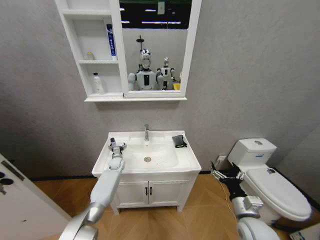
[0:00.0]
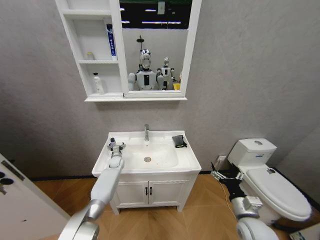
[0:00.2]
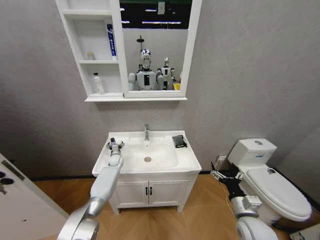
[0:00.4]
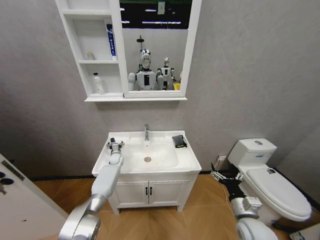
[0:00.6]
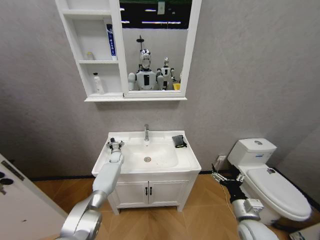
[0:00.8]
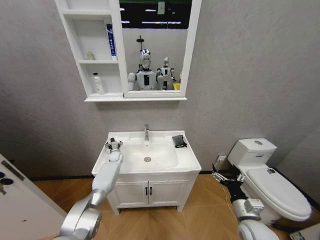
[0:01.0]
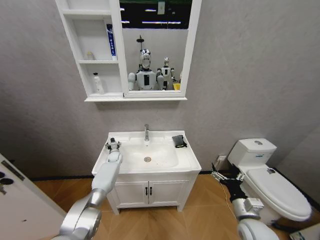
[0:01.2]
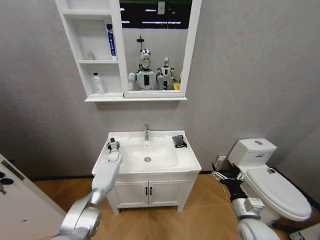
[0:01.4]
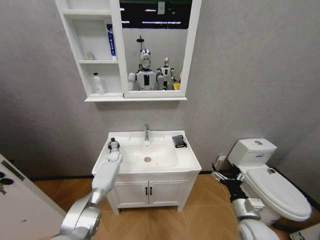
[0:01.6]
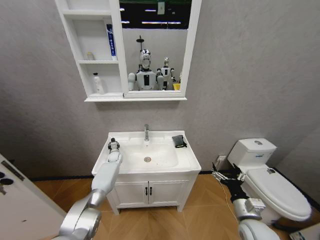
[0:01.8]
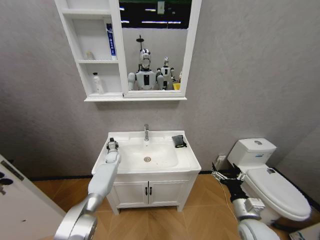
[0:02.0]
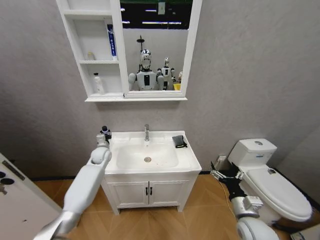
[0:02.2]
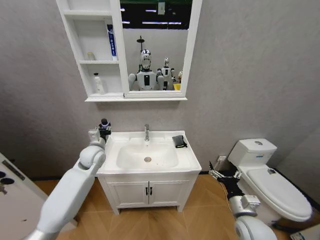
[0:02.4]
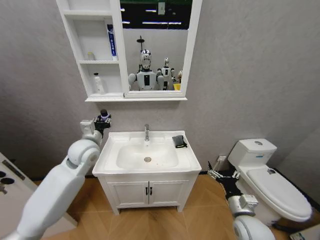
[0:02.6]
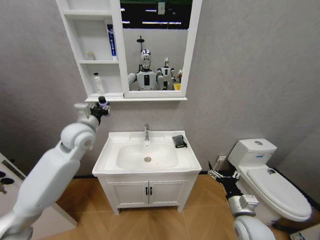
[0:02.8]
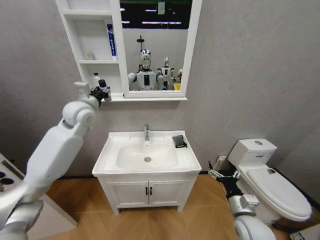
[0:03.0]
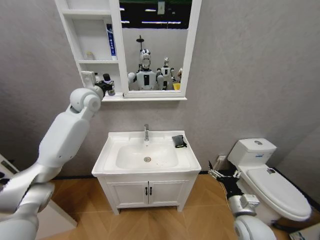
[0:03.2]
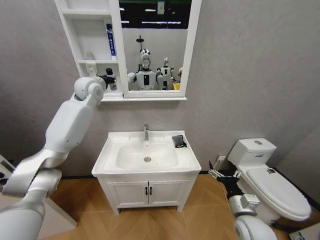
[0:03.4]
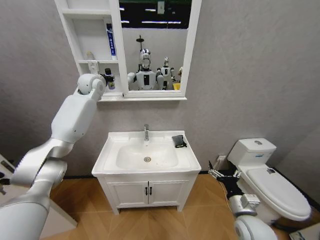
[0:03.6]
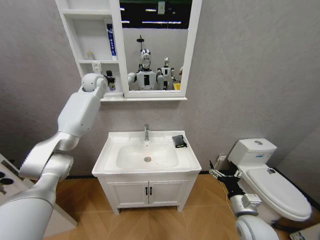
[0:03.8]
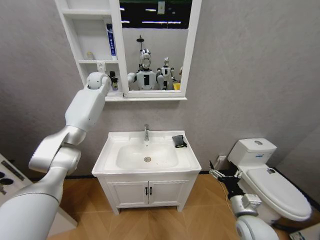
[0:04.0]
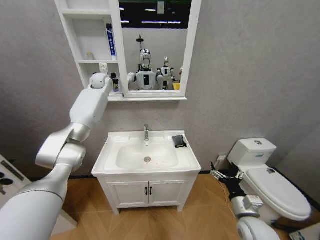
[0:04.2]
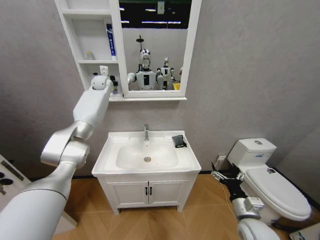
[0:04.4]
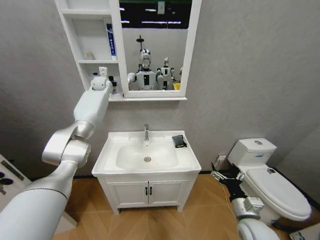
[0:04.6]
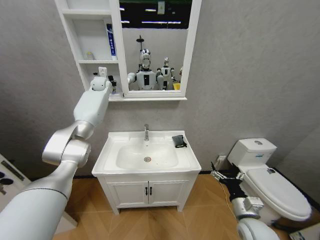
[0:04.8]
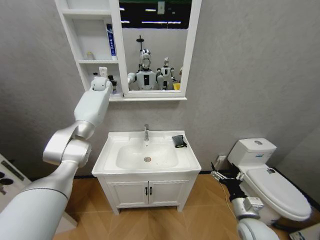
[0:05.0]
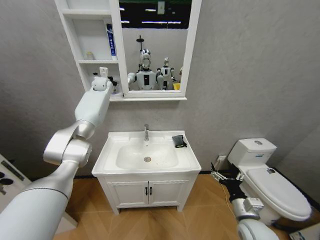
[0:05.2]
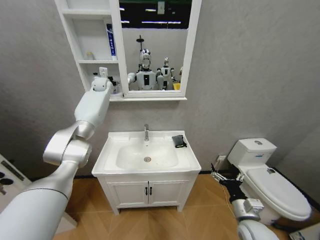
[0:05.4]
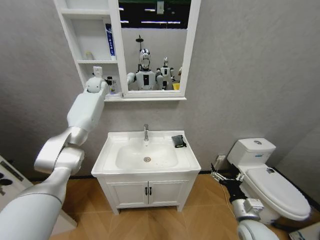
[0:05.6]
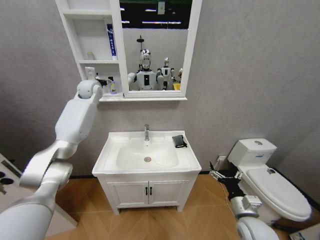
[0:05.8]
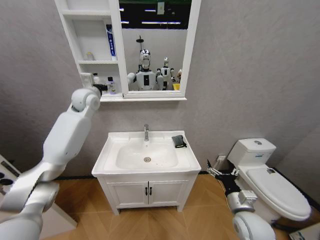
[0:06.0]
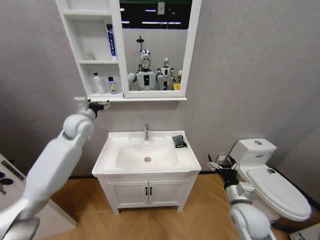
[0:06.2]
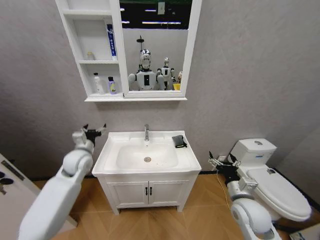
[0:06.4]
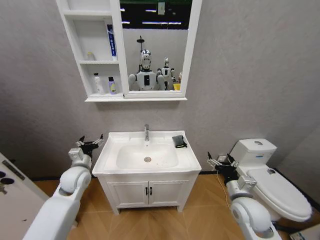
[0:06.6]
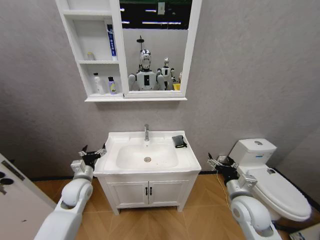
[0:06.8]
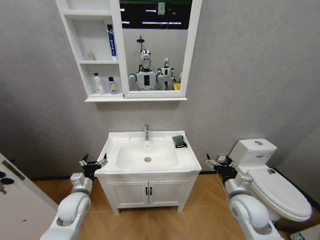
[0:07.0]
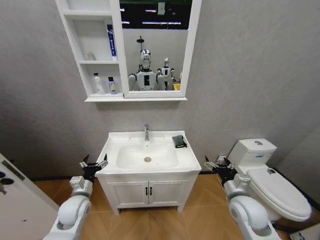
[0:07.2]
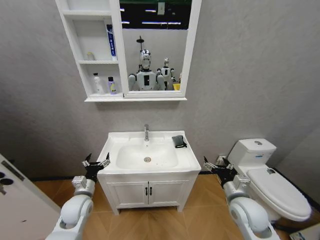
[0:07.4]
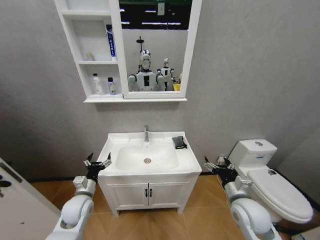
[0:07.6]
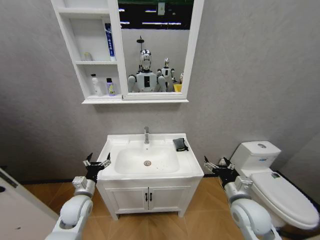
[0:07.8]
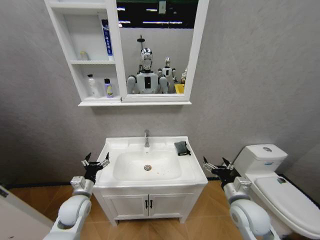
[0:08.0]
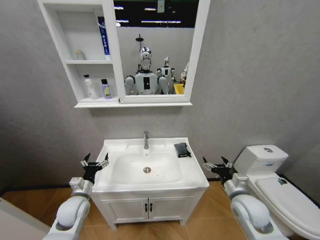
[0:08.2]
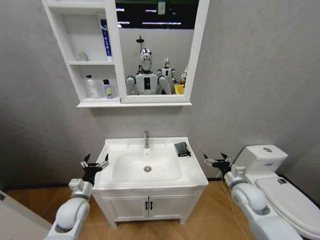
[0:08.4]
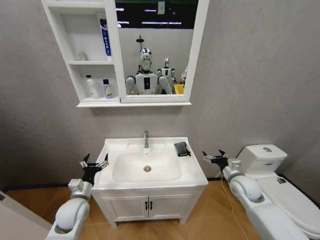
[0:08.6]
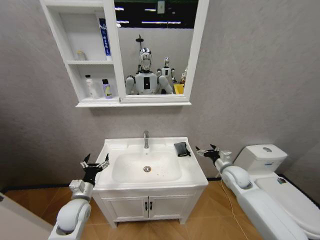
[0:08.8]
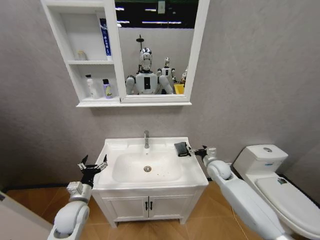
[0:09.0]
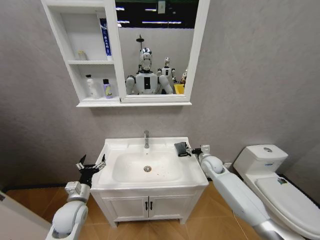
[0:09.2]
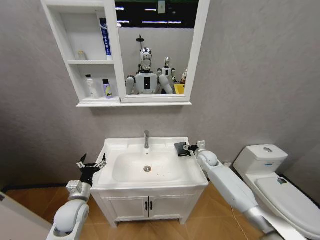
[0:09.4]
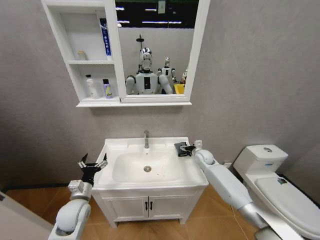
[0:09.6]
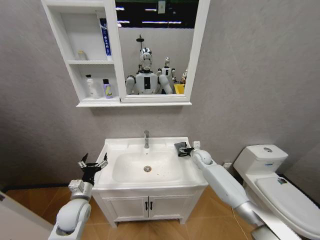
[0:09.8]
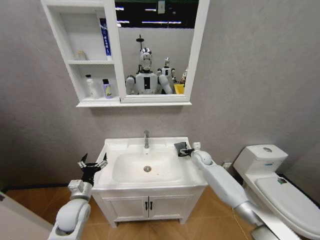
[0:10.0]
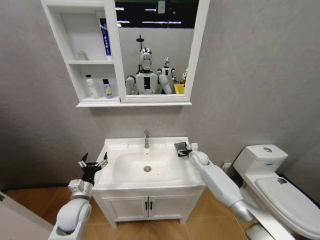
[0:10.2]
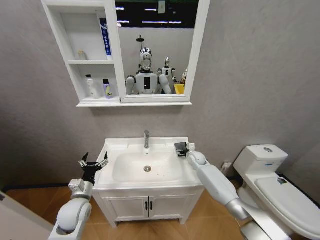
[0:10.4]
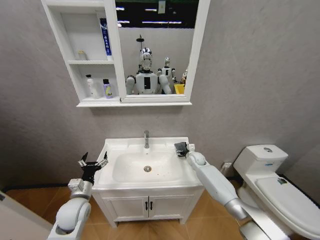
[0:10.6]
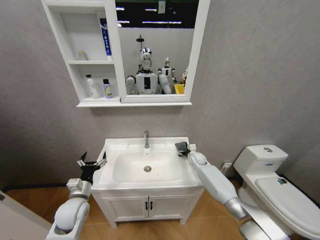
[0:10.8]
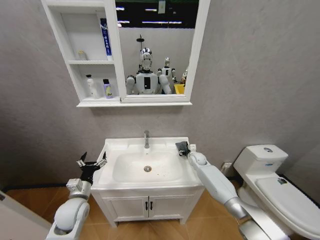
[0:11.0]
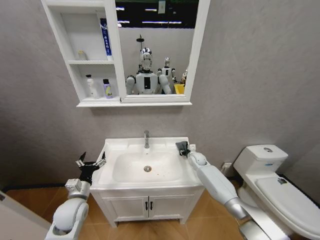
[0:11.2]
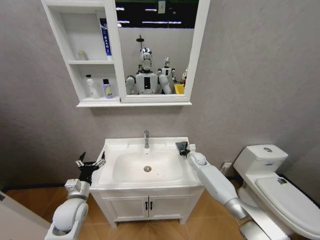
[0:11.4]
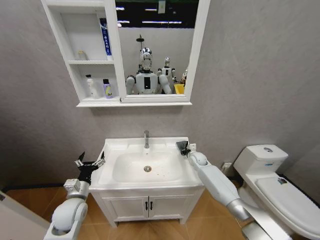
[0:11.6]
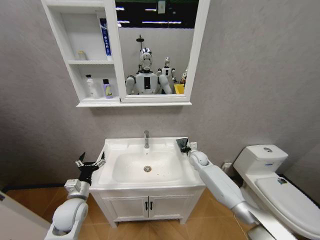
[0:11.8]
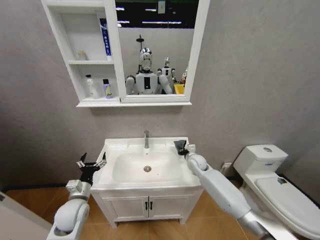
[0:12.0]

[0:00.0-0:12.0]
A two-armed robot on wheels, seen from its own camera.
Task of the whole recording: Move facial cleanser and shampoo from washbasin to cabinet, then wipe washbasin with towel.
0:00.0 to 0:01.6: The left gripper changes place by about 5 cm, and closes up.
0:01.6 to 0:03.0: The left gripper moves upward, roughly 40 cm.
0:03.0 to 0:04.4: The left gripper moves forward, some 20 cm.
0:04.4 to 0:06.0: The left gripper heads backward, covering some 15 cm, and opens its fingers.
0:06.0 to 0:07.6: The left gripper travels downward and backward by about 40 cm.
0:07.6 to 0:09.0: The right gripper goes roughly 20 cm forward.
0:09.0 to 0:10.4: The right gripper heads forward, to the left and downward, covering about 15 cm.
0:10.4 to 0:12.0: The right gripper moves roughly 5 cm, and closes its fingers.

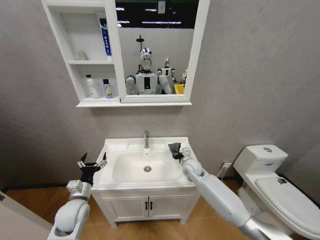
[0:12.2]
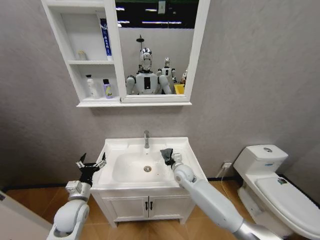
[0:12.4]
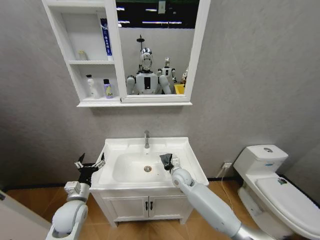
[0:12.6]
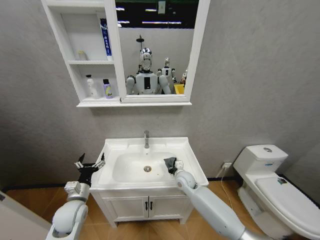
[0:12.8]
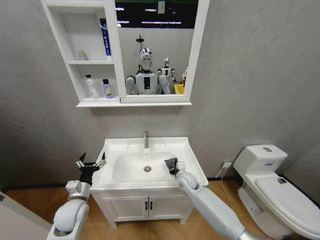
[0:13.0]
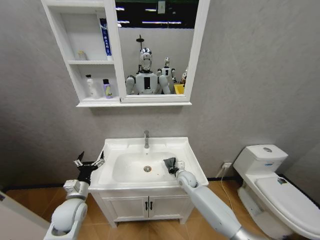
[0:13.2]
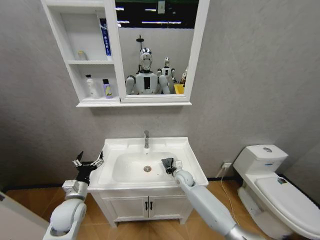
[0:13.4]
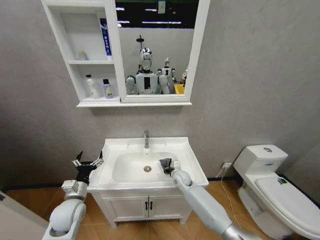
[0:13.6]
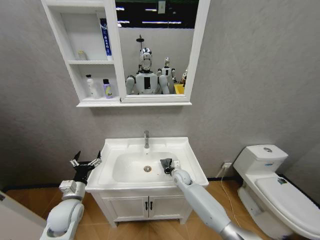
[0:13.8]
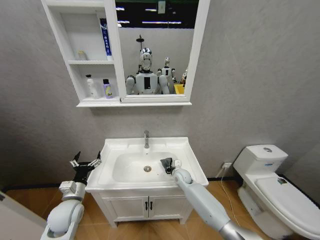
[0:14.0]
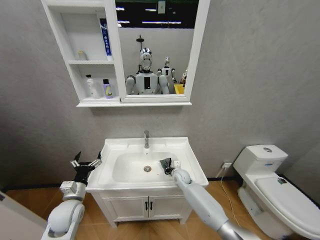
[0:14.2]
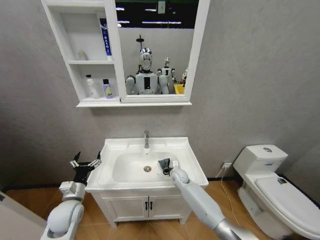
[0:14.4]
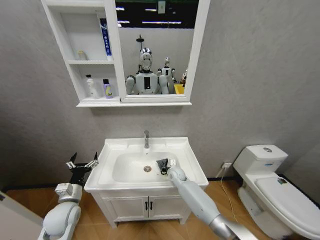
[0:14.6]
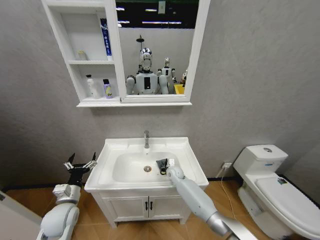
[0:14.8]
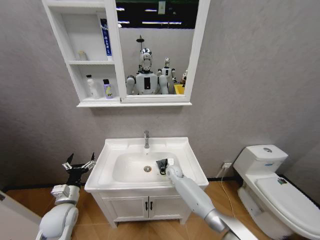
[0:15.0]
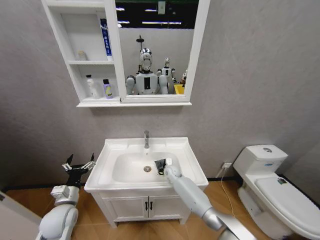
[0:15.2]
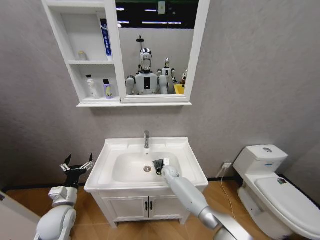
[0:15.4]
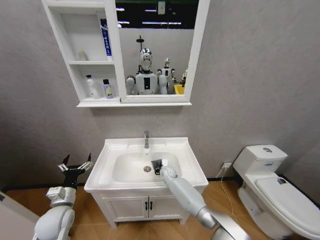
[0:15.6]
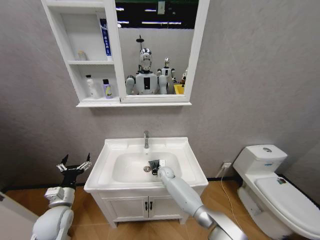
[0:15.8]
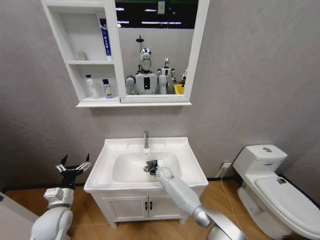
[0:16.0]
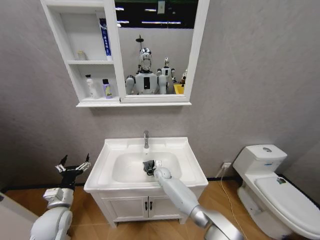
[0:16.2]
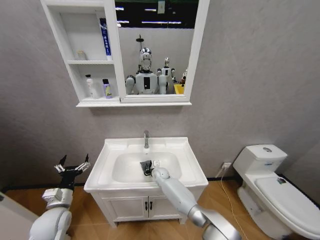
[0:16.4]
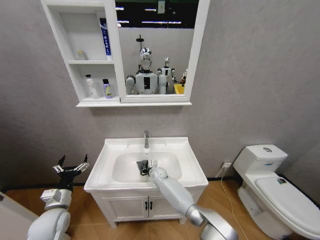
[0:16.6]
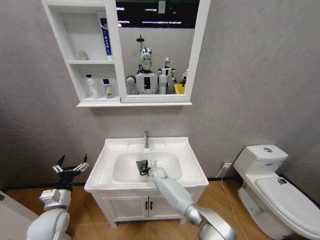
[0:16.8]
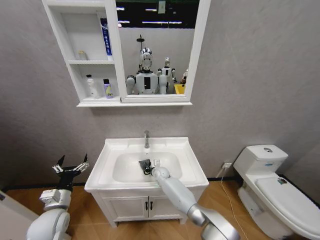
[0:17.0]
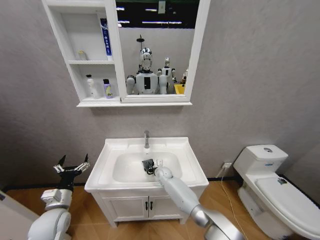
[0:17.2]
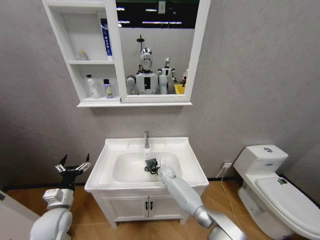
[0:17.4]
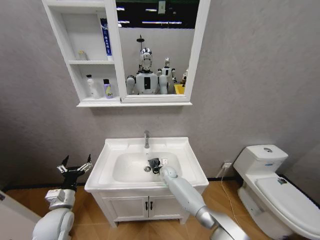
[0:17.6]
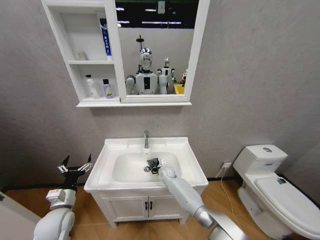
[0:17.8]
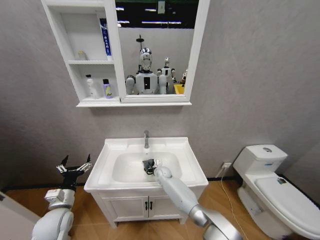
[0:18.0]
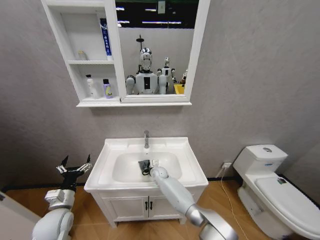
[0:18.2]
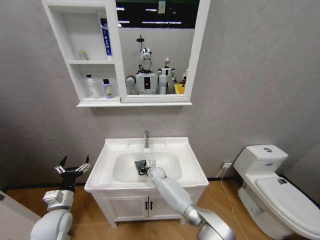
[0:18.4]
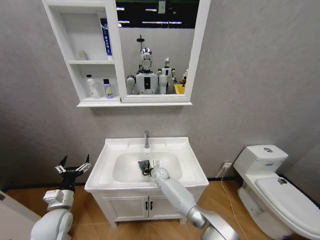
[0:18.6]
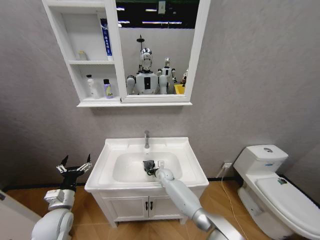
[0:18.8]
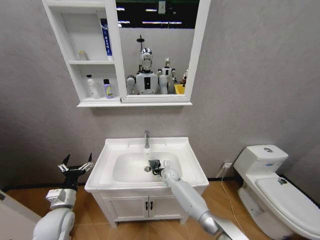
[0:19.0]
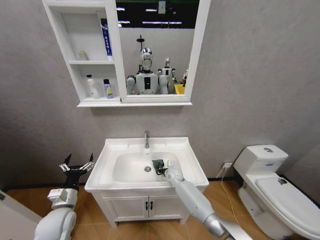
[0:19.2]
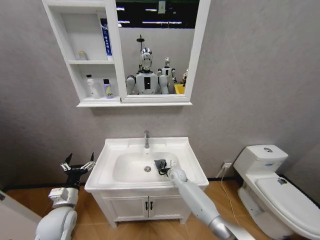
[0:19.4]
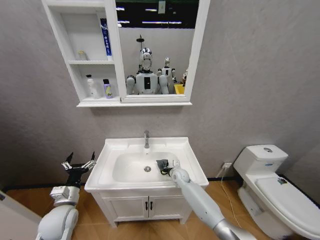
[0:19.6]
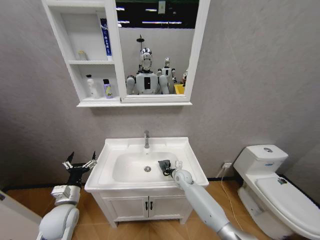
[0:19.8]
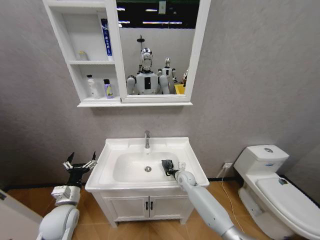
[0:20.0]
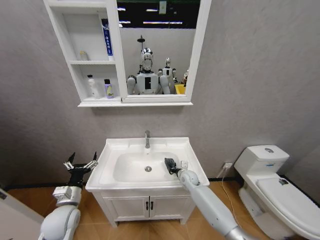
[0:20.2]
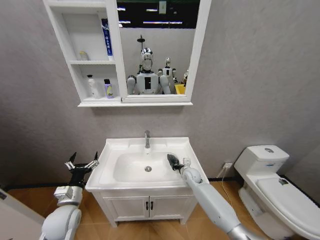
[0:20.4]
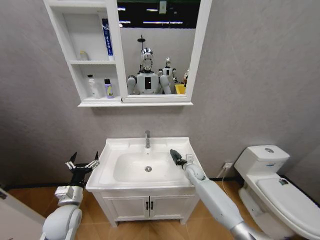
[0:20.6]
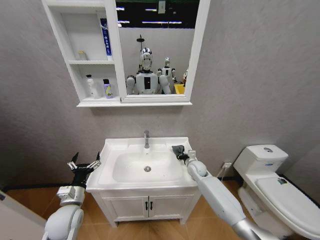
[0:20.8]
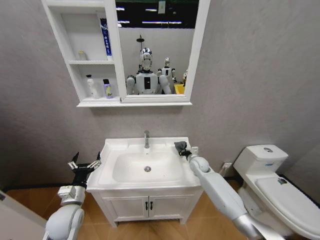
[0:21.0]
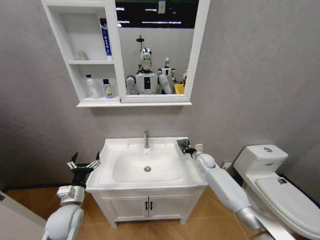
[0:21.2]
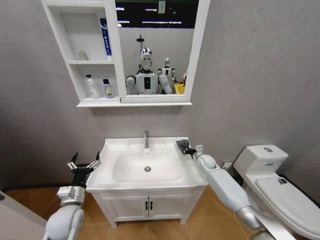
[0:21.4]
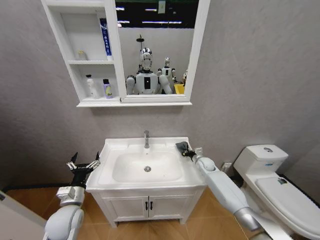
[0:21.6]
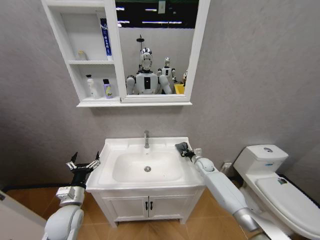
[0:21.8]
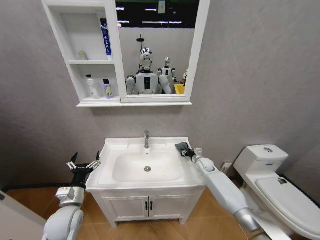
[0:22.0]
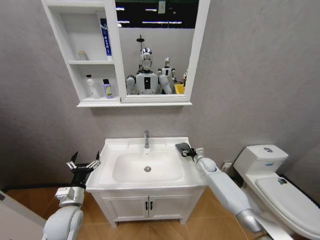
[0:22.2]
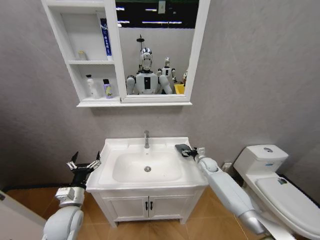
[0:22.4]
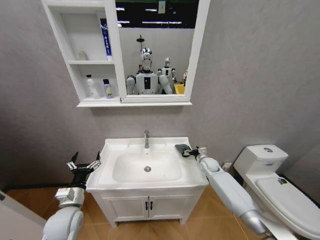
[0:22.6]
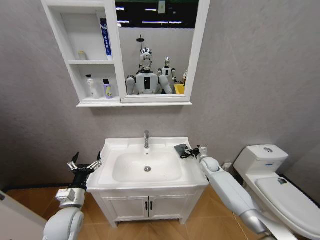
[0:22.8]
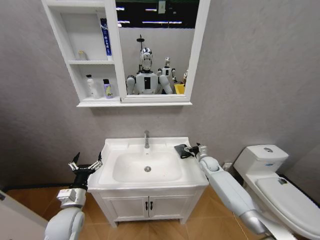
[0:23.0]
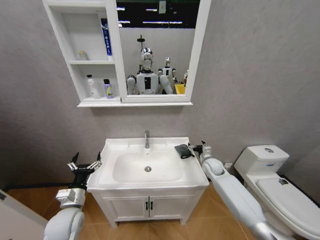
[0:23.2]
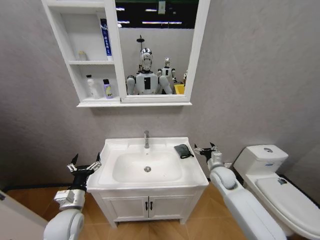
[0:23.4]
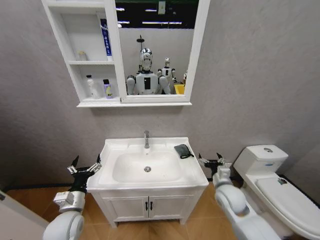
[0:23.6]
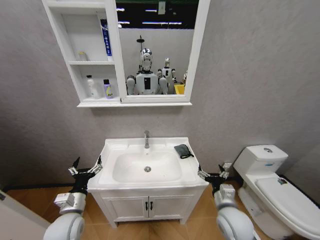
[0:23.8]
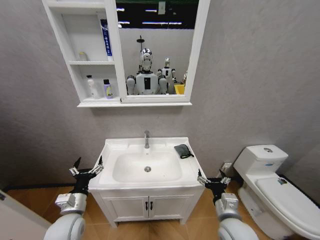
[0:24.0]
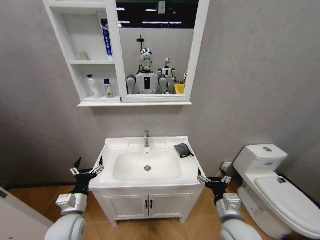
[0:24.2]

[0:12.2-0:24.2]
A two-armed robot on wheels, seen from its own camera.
Task of the whole recording: Move facial cleanser and shampoo from washbasin to cabinet, then wipe washbasin with towel.
0:12.2 to 0:13.8: The right gripper travels downward by approximately 10 cm.
0:13.8 to 0:15.2: The right gripper shifts by approximately 5 cm.
0:15.2 to 0:16.6: The right gripper goes roughly 10 cm to the left.
0:16.6 to 0:18.2: The grippers make only small movements.
0:18.2 to 0:19.8: The right gripper is displaced to the right by roughly 15 cm.
0:19.8 to 0:21.2: The right gripper heads to the right, upward and forward, covering approximately 15 cm.
0:21.2 to 0:22.6: The right gripper opens its fingers.
0:22.6 to 0:24.2: The right gripper moves backward, some 30 cm.
